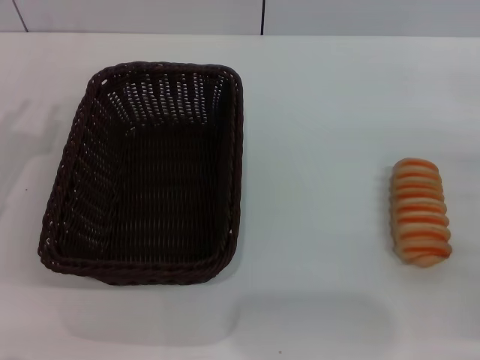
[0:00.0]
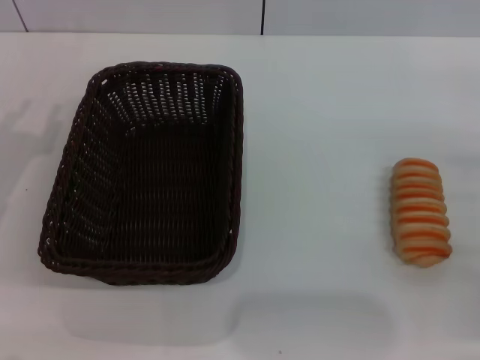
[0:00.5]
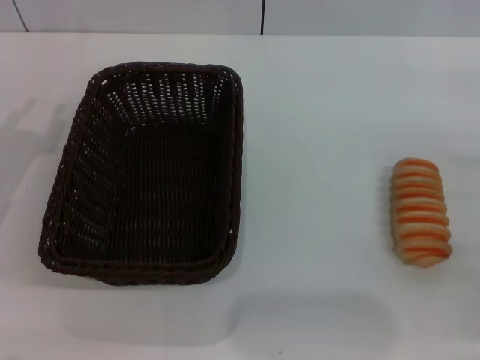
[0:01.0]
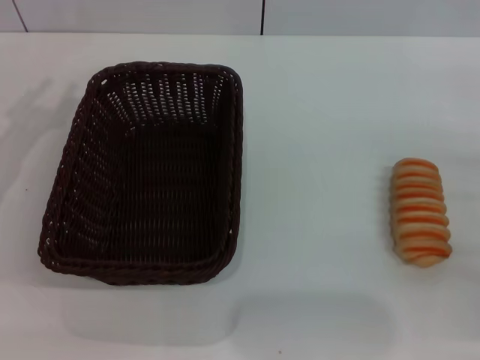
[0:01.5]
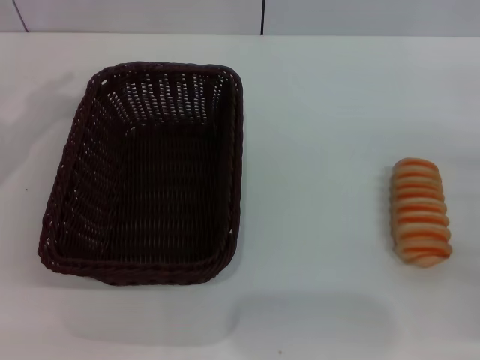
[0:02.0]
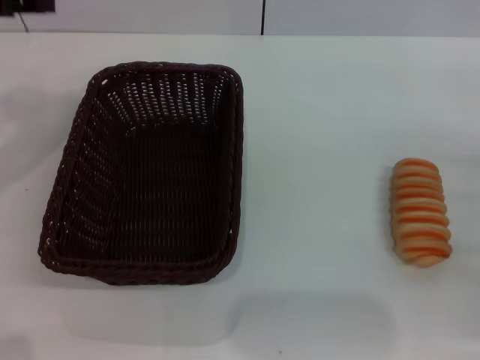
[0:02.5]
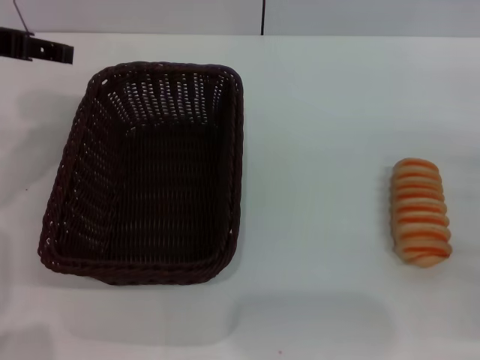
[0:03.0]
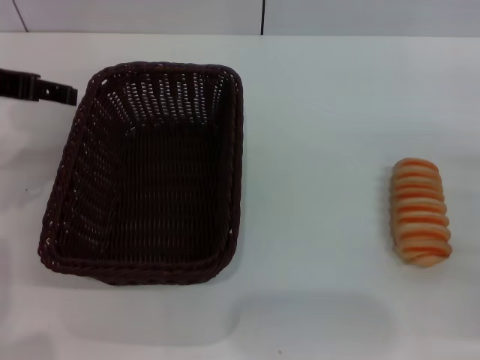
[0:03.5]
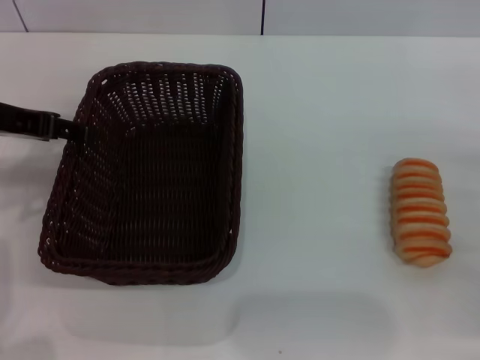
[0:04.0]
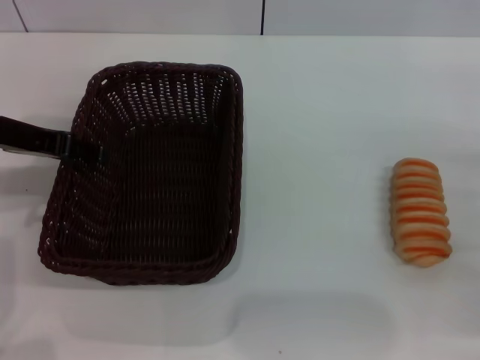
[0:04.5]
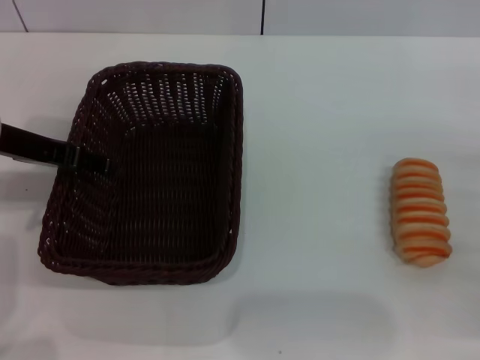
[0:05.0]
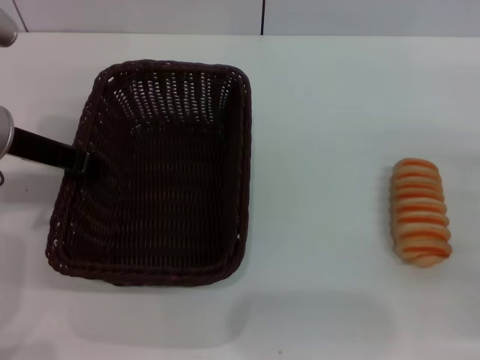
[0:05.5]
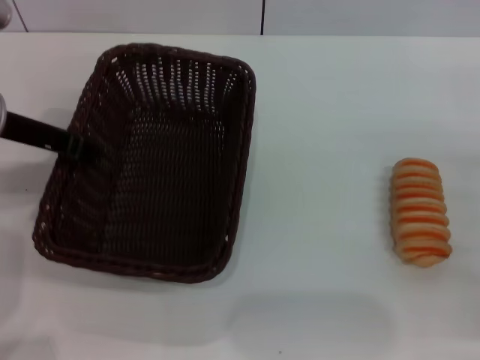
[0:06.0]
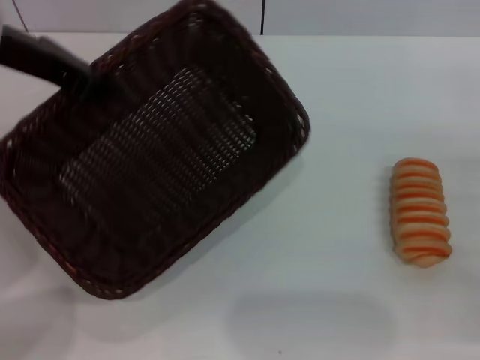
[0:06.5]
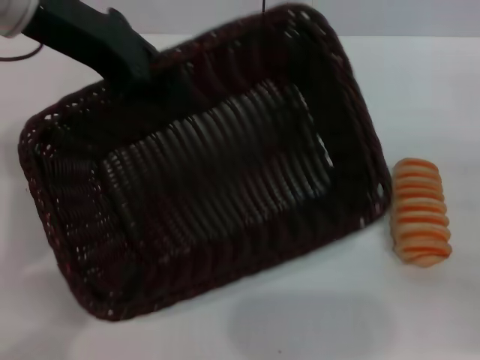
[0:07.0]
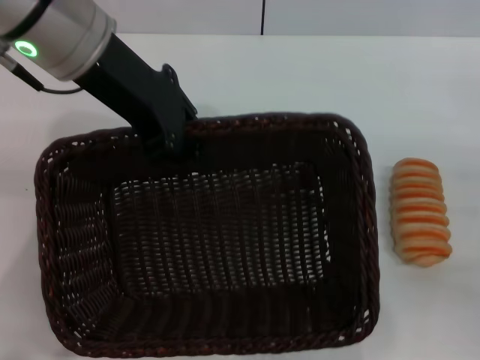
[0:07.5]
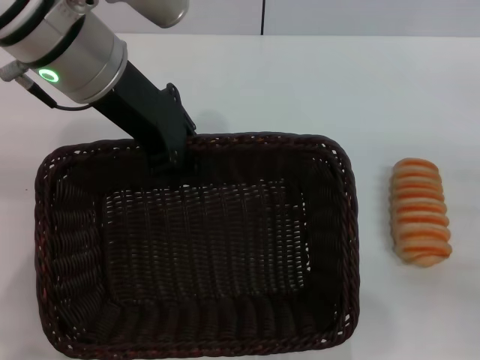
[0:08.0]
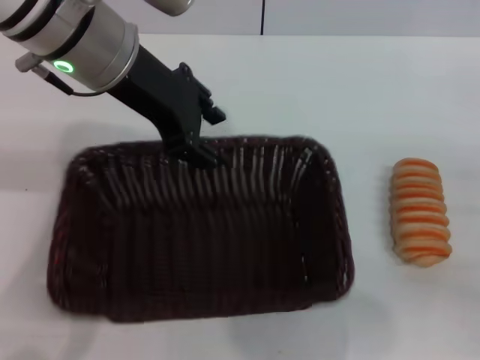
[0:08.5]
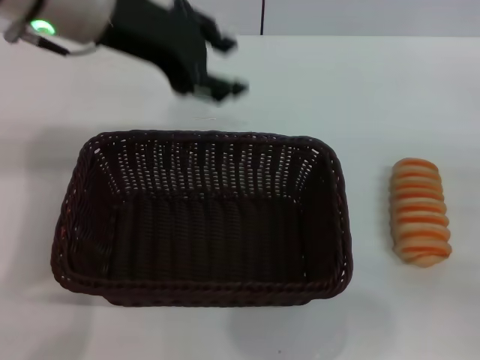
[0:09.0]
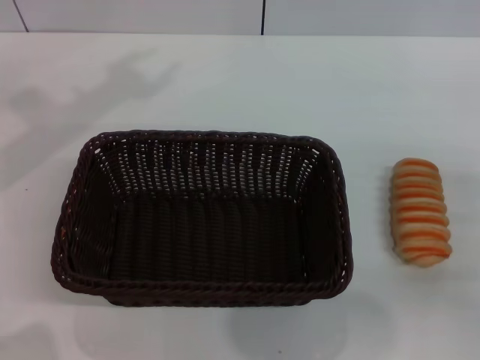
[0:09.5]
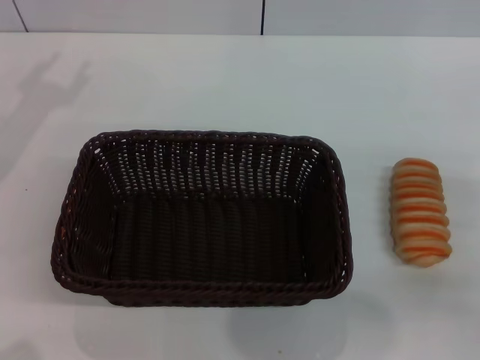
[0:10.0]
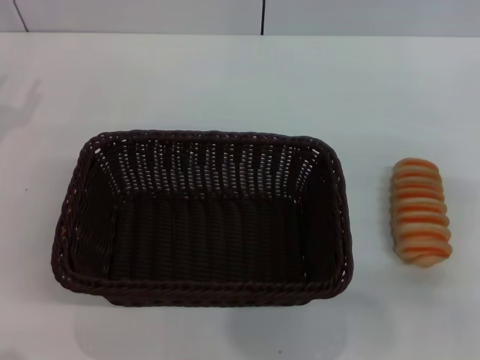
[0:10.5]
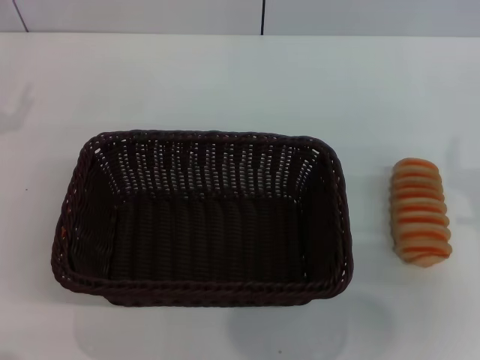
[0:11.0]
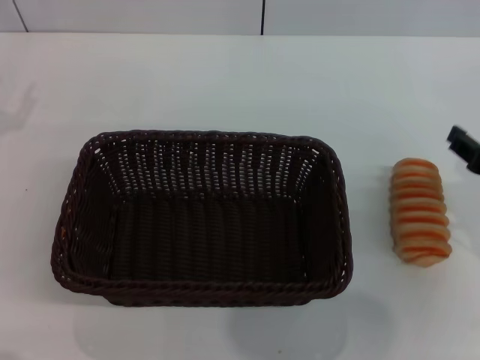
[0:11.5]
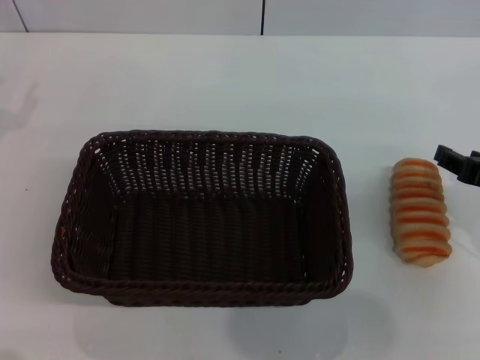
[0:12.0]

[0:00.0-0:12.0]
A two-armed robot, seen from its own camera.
Step, 0.0 to 6.5 s: Pick up the dark basket with the left gripper.
Step, 7.0 to 9.0 s: Place the dark basket in the center of view with the left gripper.
2.0 to 4.0 s: The left gripper moves to the right, roughly 5 cm, and opens up.
4.0 to 6.0 s: The left gripper closes.
6.0 to 8.0 s: The left gripper goes roughly 15 cm to the right and upward.
8.0 to 10.0 s: The left gripper travels to the left by some 20 cm, and opens.
10.0 to 12.0 s: The right gripper goes about 5 cm to the left.

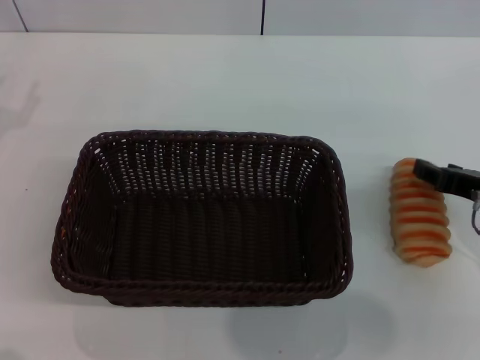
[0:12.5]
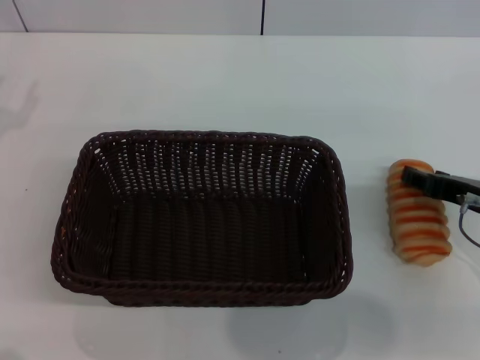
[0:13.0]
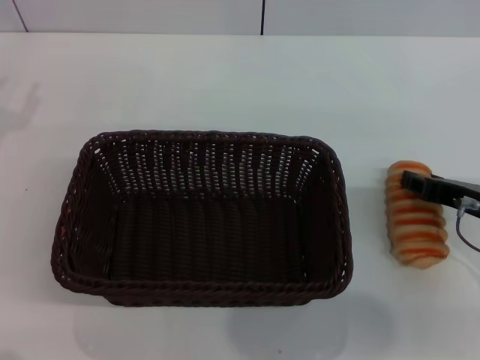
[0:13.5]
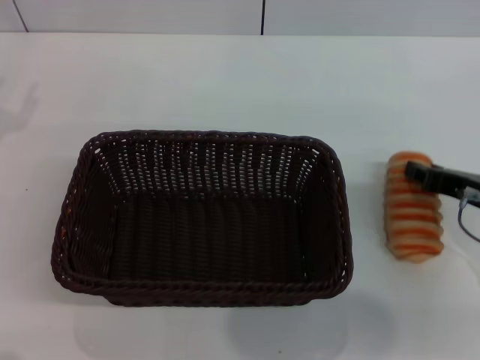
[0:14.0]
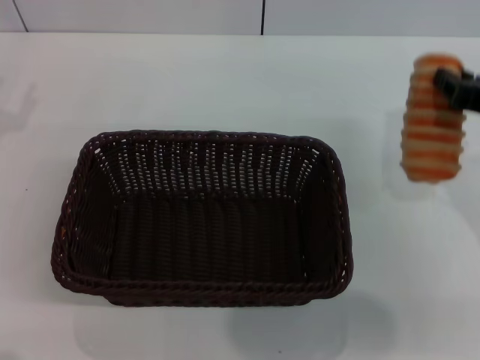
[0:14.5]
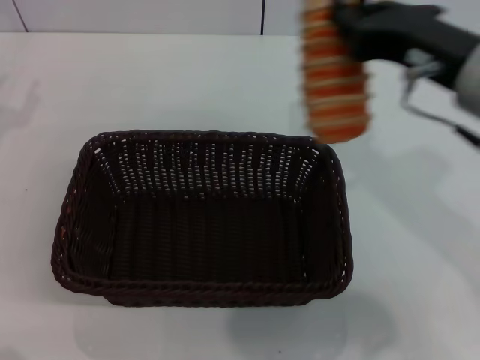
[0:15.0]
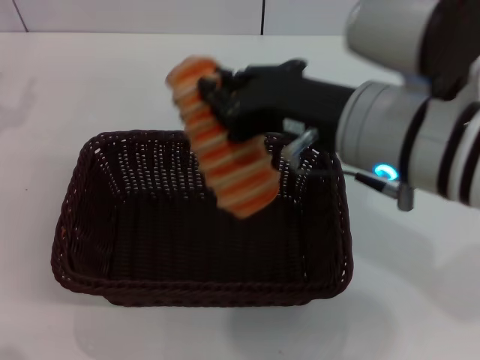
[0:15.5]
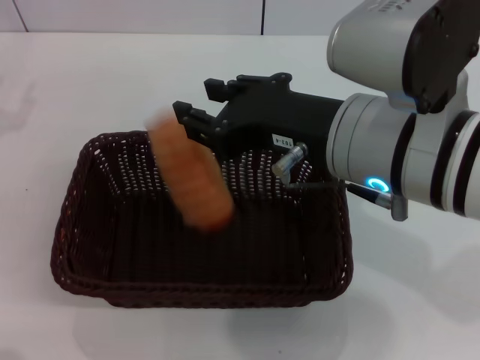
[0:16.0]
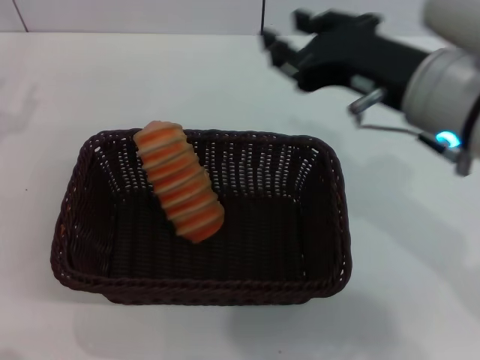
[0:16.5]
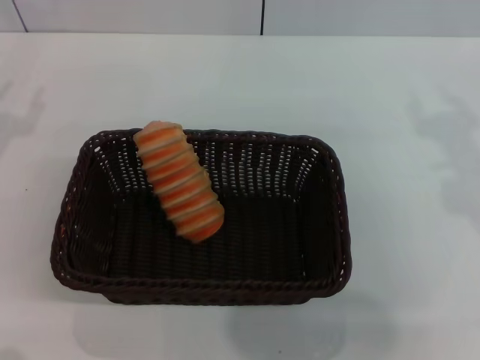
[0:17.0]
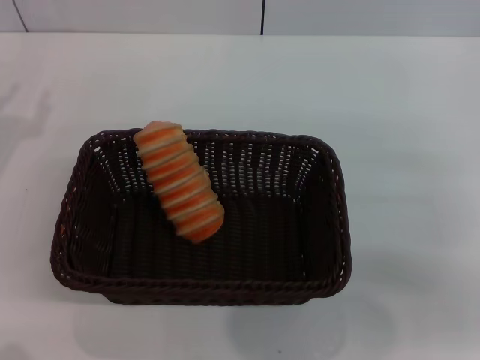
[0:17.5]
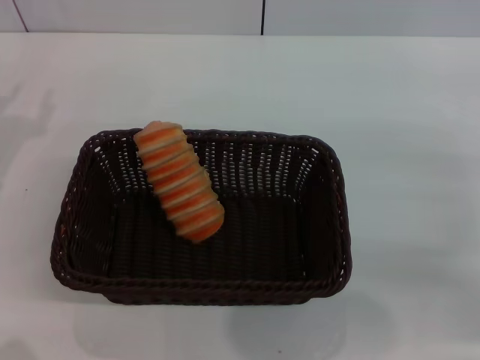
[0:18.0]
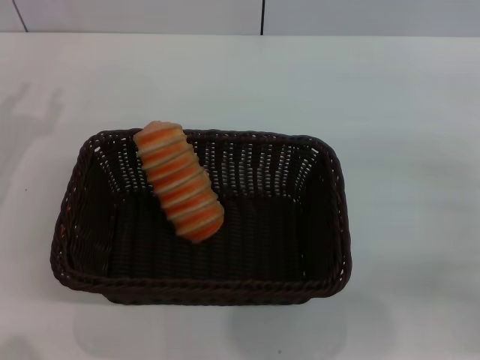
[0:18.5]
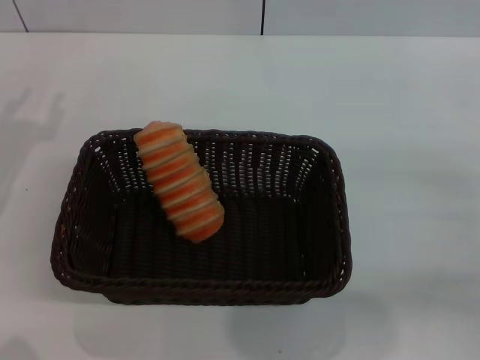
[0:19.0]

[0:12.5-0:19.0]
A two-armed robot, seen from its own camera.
Step, 12.5 to 14.5 s: Pick up the long bread with the right gripper.
Step, 15.0 to 16.0 s: Place the long bread into the dark basket with the right gripper.
12.5 to 14.5 s: The right gripper heads upward, covering approximately 5 cm, and closes its fingers.
14.5 to 17.0 s: The right gripper reaches approximately 15 cm to the left, then returns, and opens up.
17.0 to 19.0 s: The right gripper heads downward and to the right, covering some 15 cm.

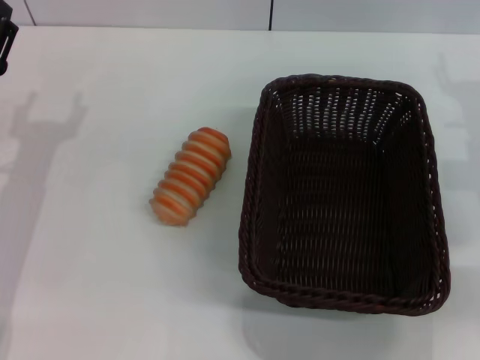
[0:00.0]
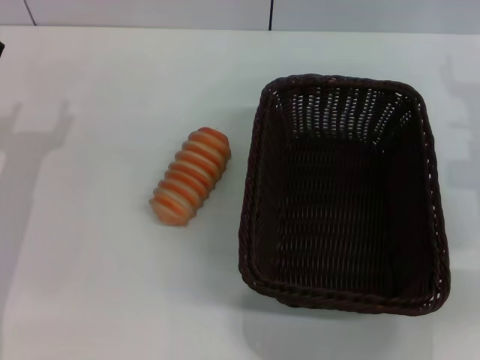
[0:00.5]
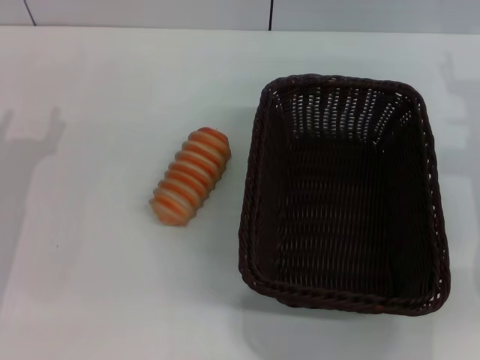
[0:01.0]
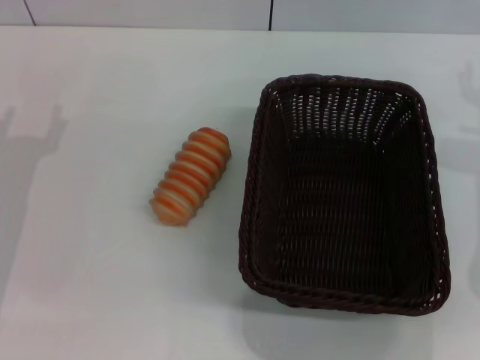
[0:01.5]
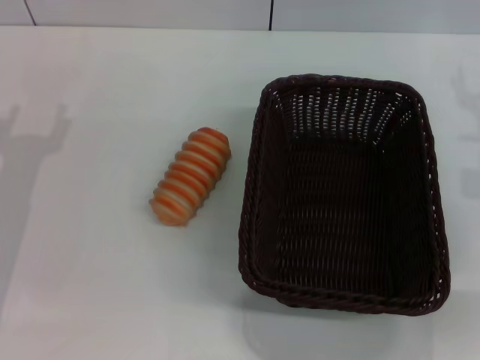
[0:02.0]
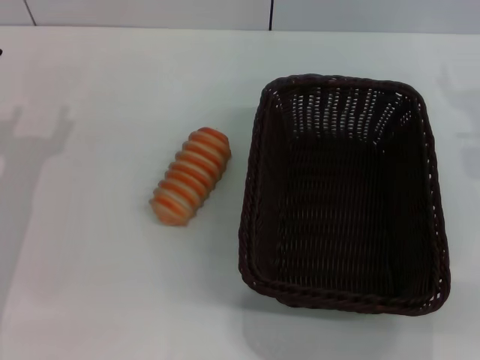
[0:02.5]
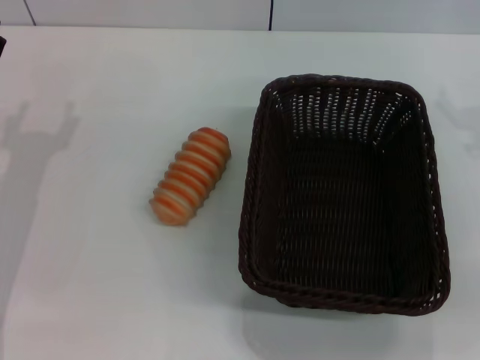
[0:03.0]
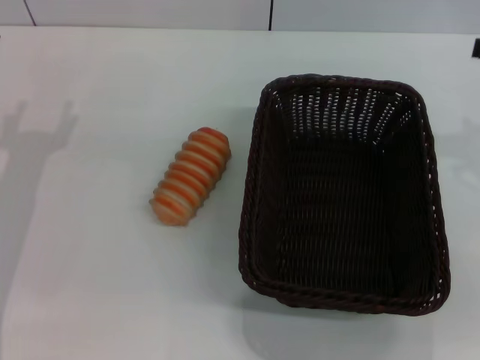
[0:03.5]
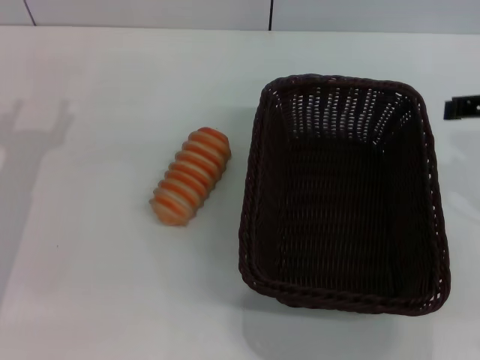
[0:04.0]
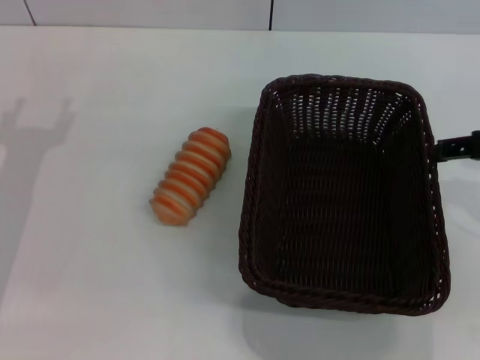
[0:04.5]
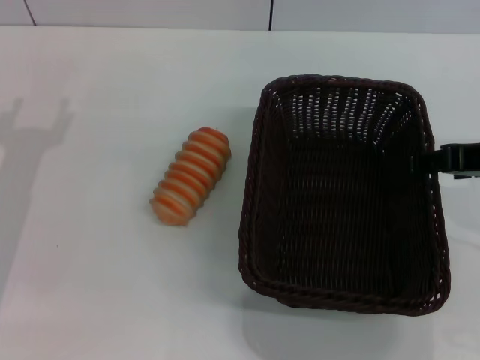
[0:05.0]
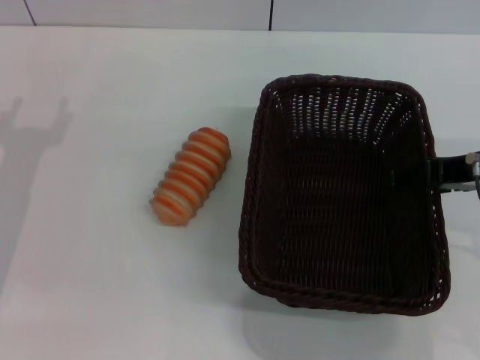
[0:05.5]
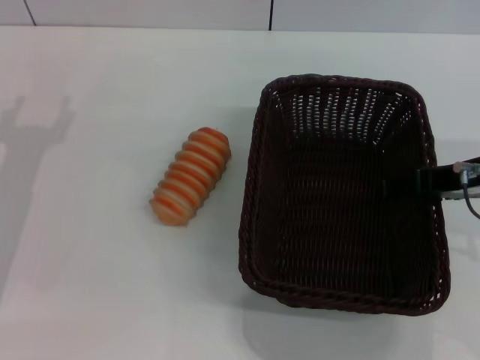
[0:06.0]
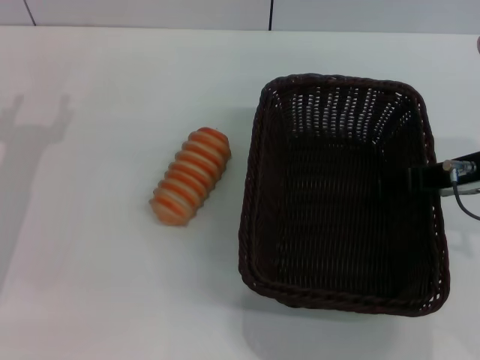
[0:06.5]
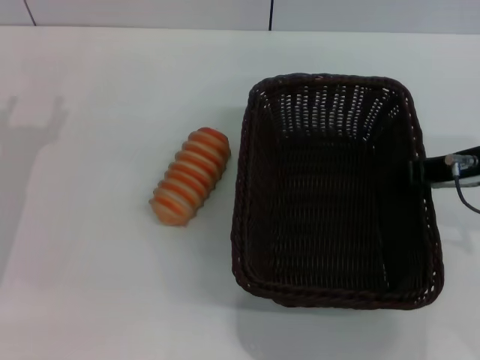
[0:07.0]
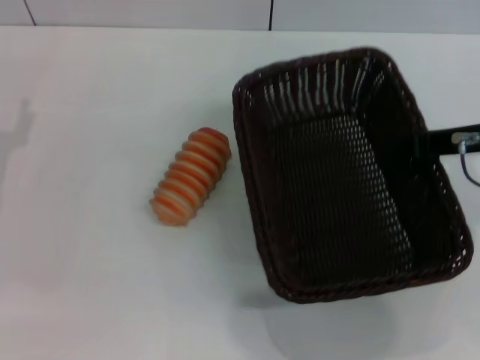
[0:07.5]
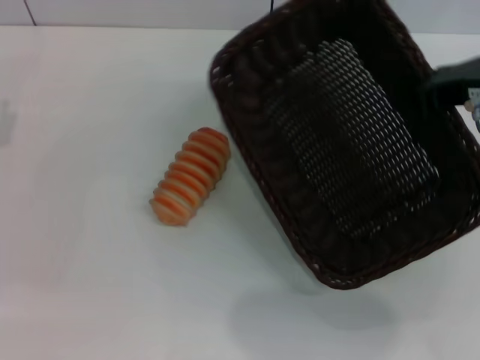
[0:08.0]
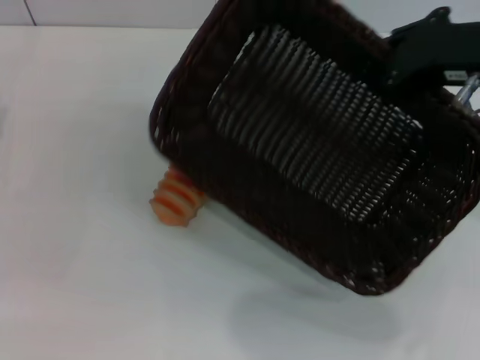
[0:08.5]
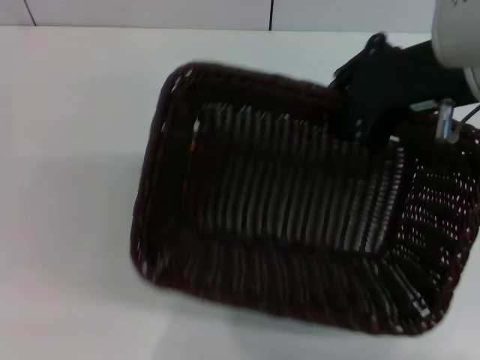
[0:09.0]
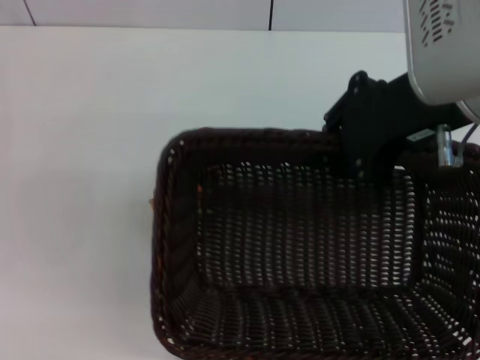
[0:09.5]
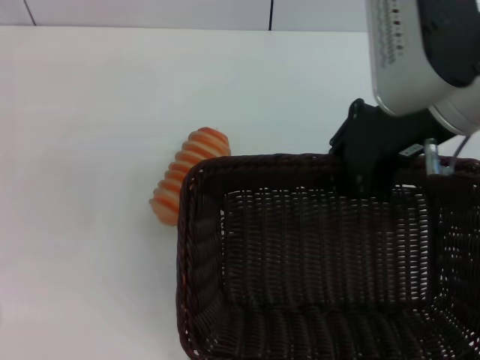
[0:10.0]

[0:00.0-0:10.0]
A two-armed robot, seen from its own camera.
Step, 0.0 to 7.5 s: Pick up the dark basket with the right gripper.
4.0 to 6.0 s: The right gripper is displaced downward by about 5 cm.
6.0 to 8.0 s: The right gripper closes up.
8.0 to 10.0 s: The right gripper is displaced to the left by approximately 10 cm.
